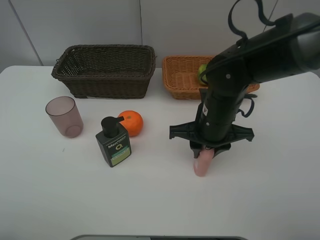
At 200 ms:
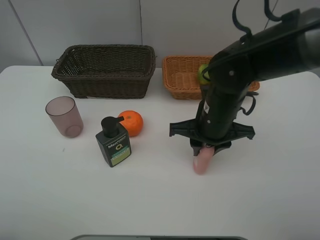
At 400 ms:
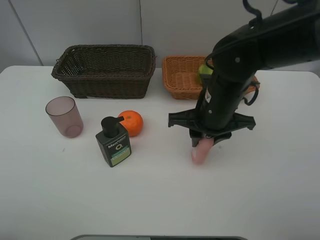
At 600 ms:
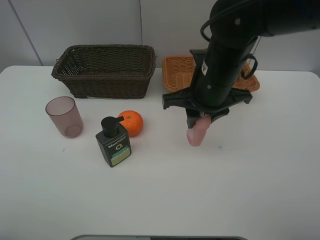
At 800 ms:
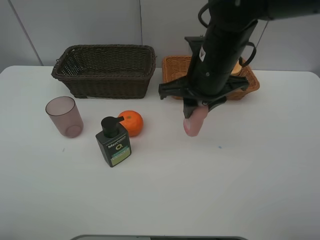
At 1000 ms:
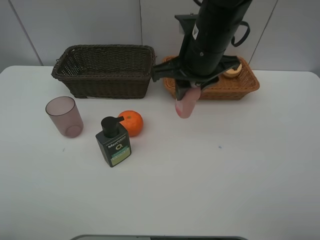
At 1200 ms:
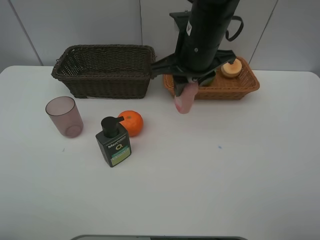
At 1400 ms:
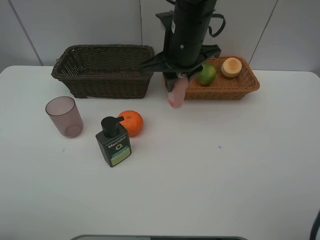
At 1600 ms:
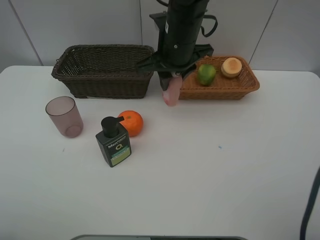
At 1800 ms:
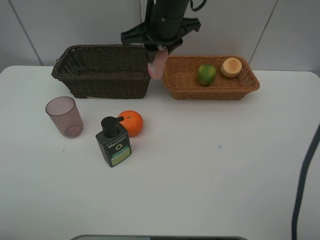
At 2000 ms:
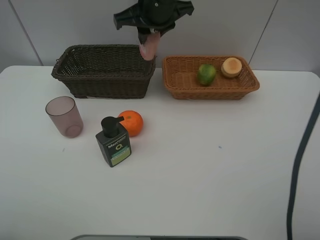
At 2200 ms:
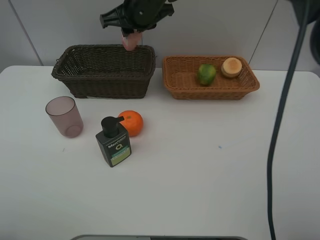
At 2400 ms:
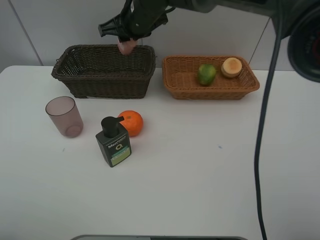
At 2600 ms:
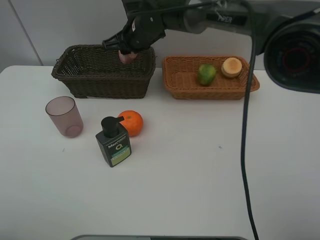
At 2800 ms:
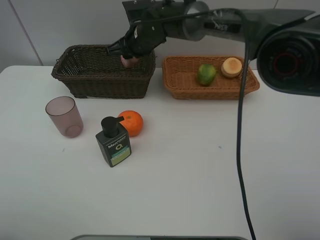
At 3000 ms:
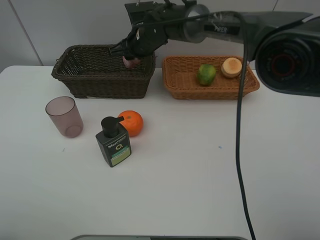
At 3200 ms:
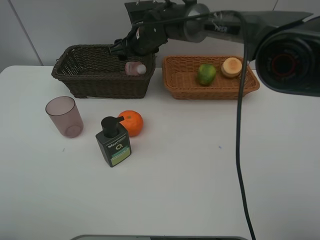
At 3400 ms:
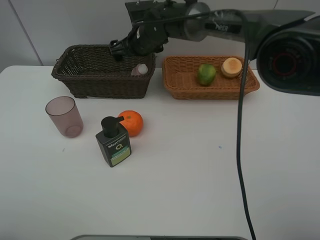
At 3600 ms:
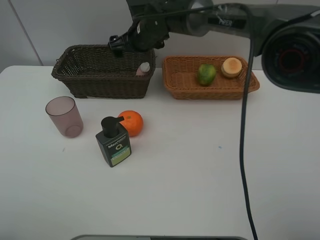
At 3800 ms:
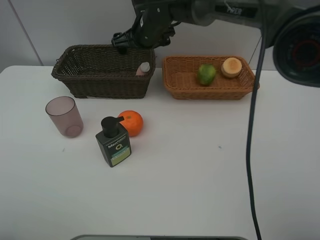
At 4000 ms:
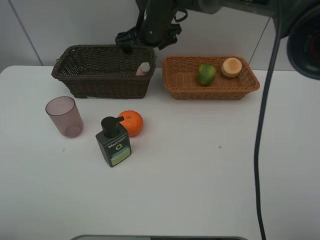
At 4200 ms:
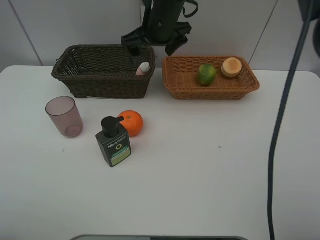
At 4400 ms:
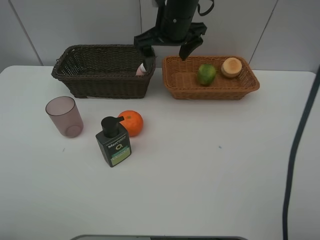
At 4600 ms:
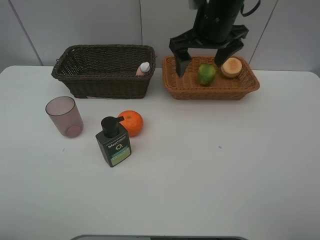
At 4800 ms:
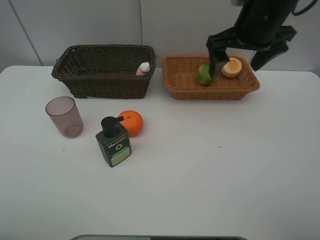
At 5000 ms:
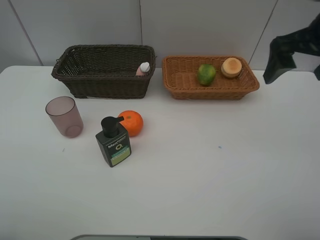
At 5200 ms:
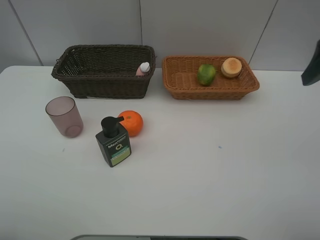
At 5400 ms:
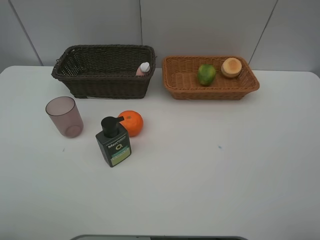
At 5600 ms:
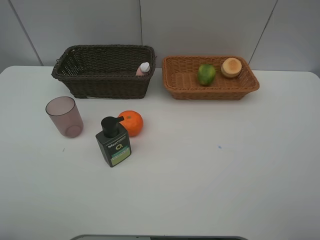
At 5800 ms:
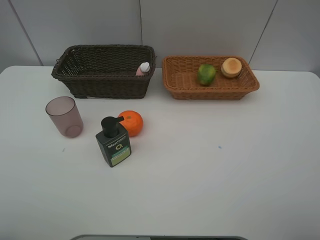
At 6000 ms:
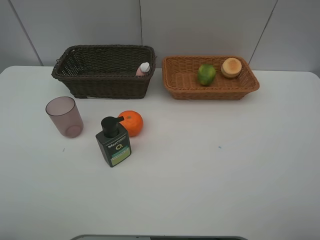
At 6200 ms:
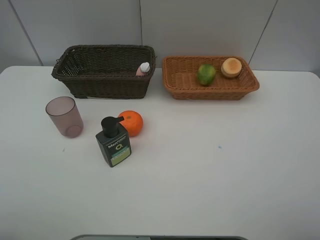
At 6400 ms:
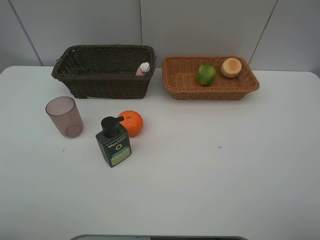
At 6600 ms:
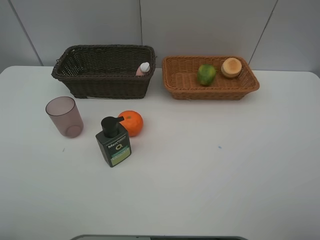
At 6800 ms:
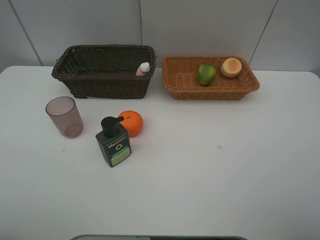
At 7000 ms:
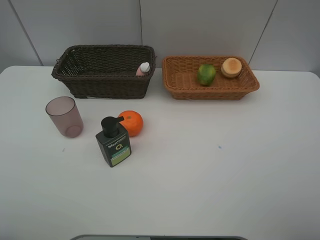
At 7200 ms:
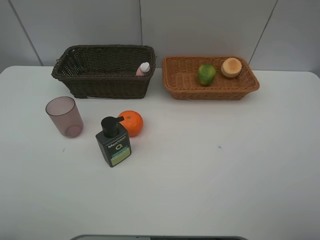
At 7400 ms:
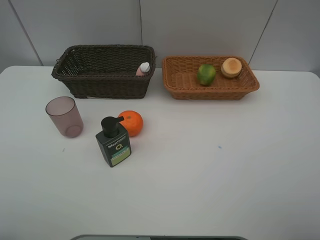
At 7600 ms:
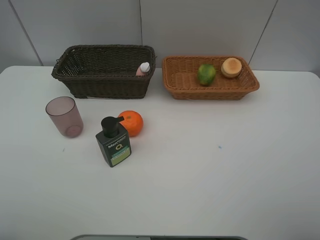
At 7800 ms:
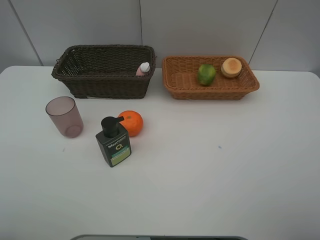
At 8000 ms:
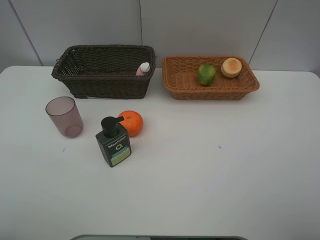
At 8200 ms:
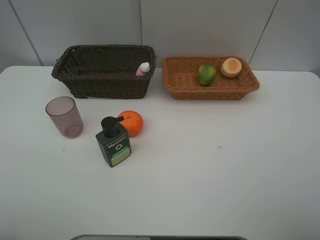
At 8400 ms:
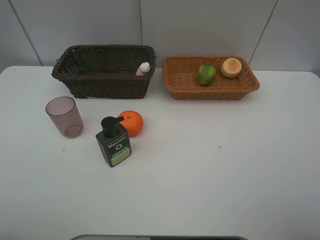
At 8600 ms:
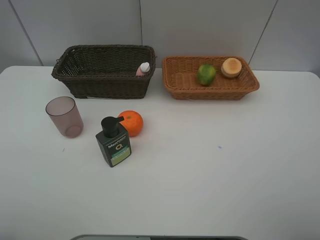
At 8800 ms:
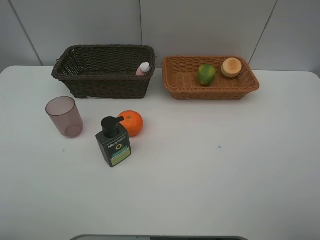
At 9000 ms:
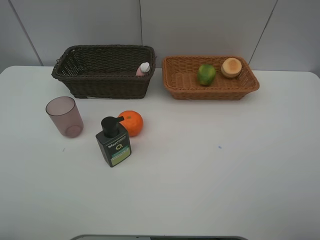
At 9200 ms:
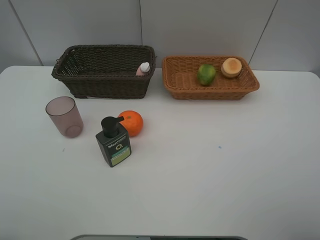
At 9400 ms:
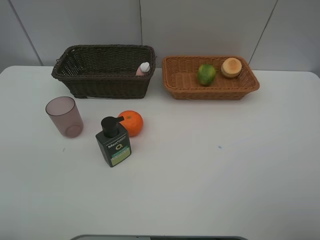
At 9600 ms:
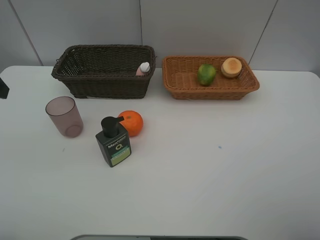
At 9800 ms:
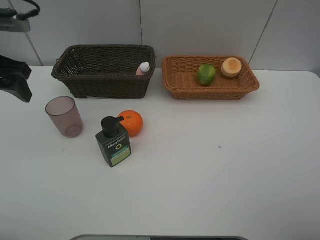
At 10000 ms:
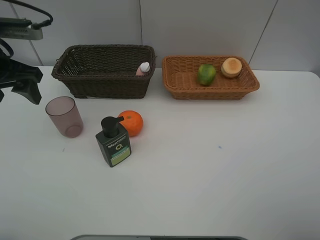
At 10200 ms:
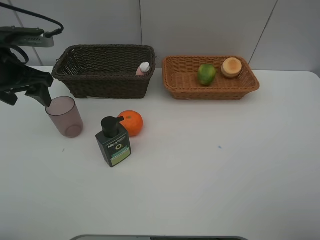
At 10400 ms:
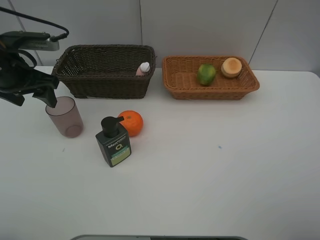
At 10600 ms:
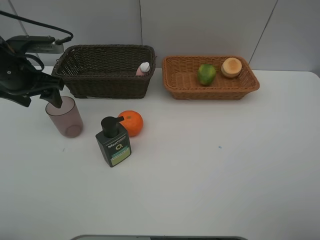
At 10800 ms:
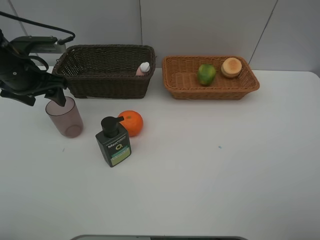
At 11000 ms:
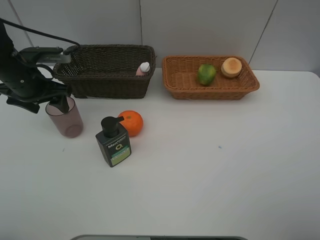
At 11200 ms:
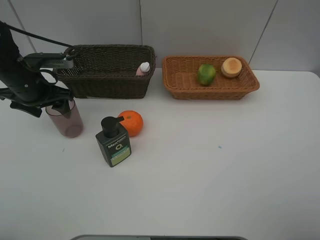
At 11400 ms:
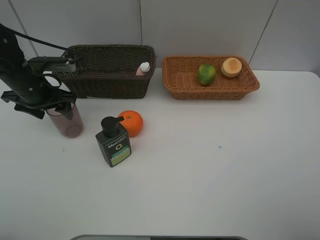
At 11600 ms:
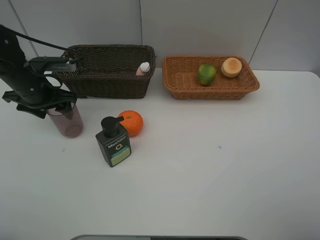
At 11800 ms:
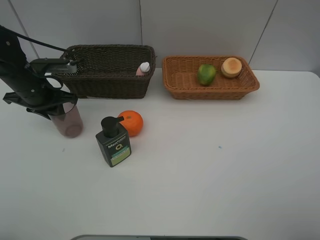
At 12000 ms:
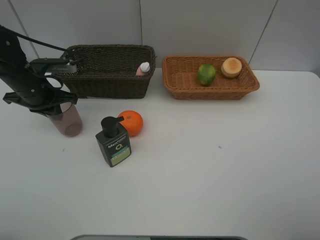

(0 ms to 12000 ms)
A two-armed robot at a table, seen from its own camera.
Task of the whole recording: place multiple objects separately in different baskets.
0 ms - 1600 ms: The right gripper goes about 15 cm upward, forward and to the left.
1600 ms - 3000 ms: The right gripper shifts roughly 15 cm forward, downward and to the left.
3000 ms - 4400 ms: The right gripper goes about 15 cm upward, to the right and backward, and opens.
4400 ms - 6000 ms: The right gripper shifts about 50 cm backward and to the right.
9000 ms - 10400 ms: The left gripper is displaced forward and downward by roughly 30 cm.
10400 ms - 12000 ms: The left gripper goes roughly 5 cm downward, and closes up.

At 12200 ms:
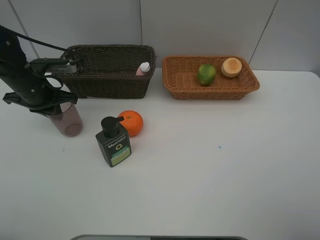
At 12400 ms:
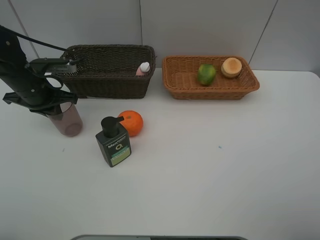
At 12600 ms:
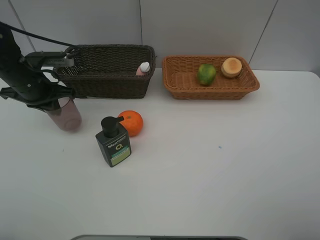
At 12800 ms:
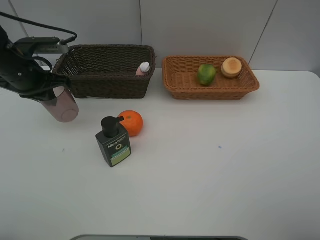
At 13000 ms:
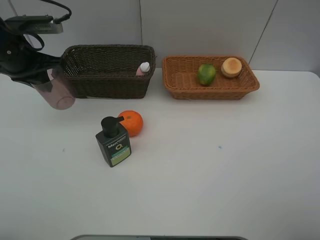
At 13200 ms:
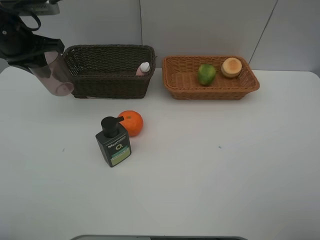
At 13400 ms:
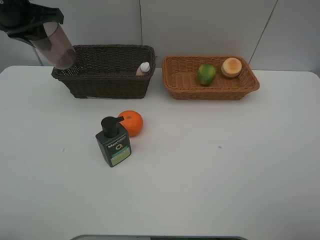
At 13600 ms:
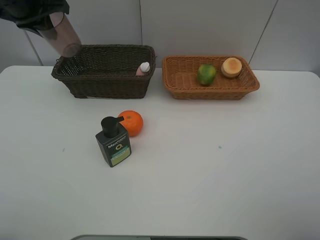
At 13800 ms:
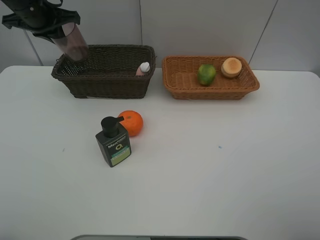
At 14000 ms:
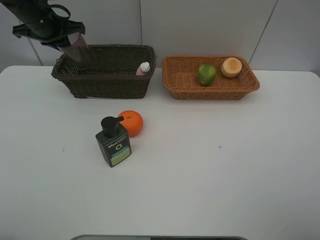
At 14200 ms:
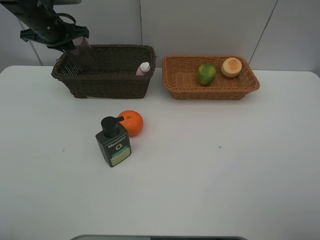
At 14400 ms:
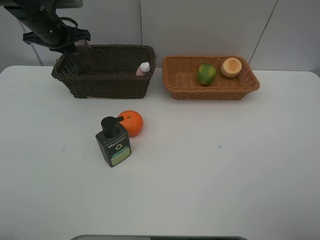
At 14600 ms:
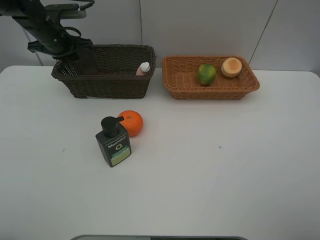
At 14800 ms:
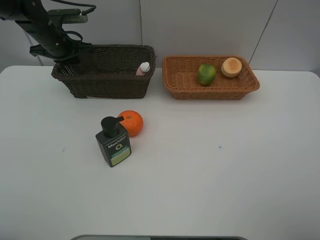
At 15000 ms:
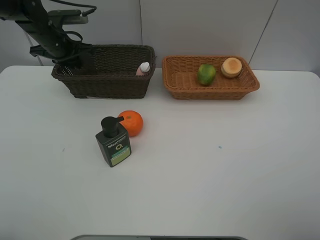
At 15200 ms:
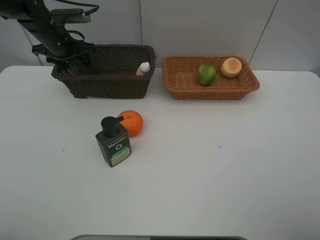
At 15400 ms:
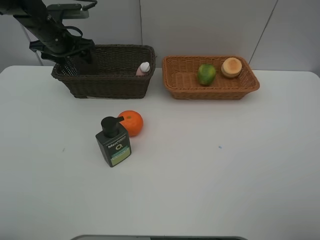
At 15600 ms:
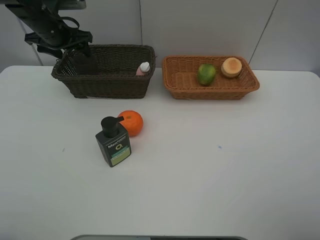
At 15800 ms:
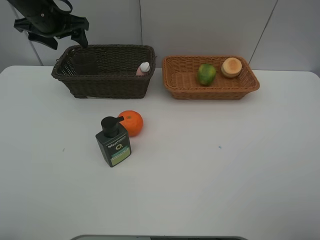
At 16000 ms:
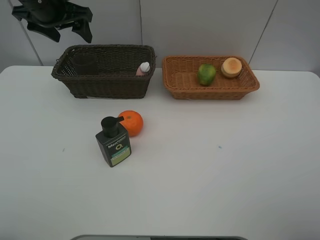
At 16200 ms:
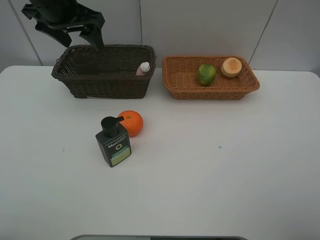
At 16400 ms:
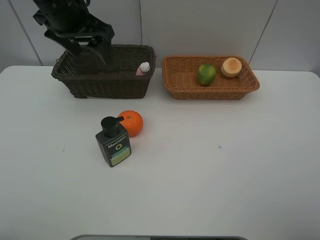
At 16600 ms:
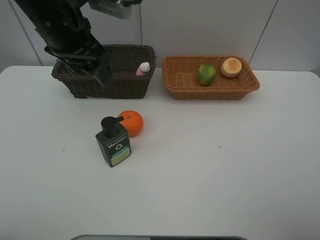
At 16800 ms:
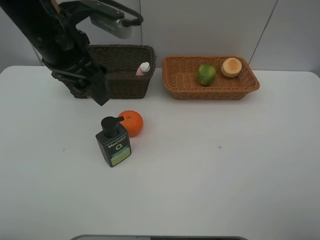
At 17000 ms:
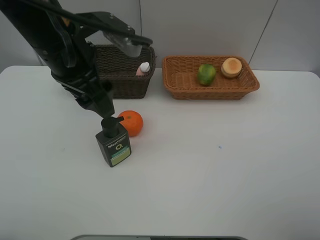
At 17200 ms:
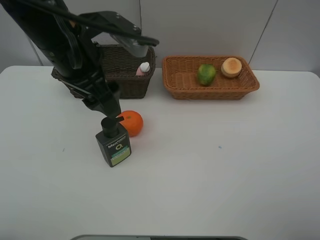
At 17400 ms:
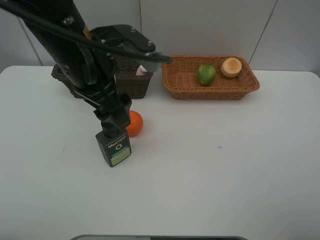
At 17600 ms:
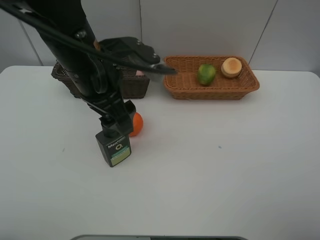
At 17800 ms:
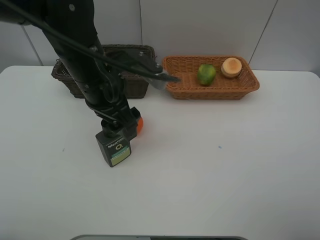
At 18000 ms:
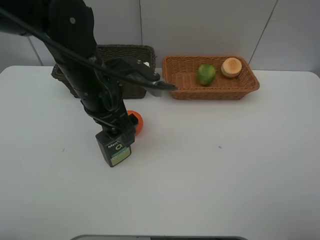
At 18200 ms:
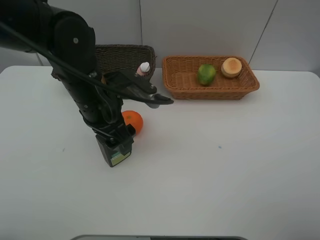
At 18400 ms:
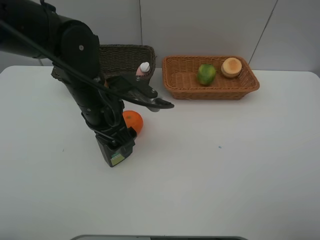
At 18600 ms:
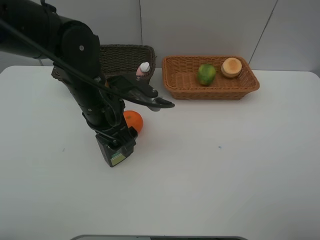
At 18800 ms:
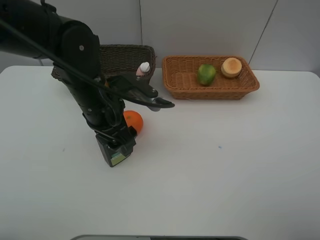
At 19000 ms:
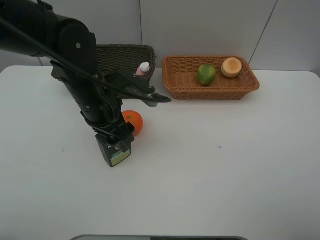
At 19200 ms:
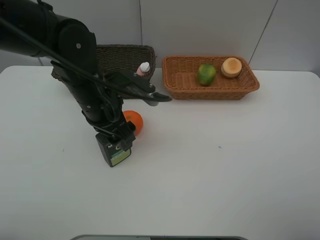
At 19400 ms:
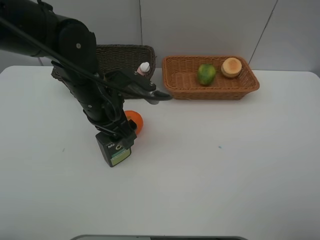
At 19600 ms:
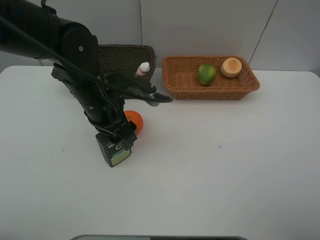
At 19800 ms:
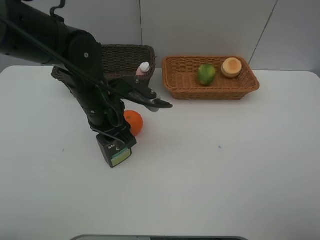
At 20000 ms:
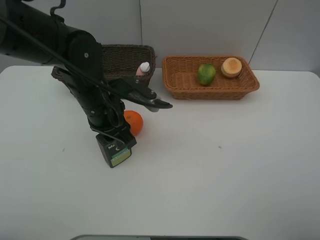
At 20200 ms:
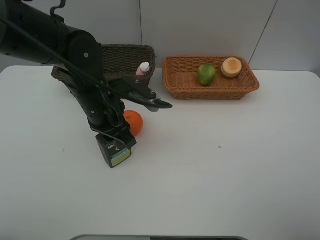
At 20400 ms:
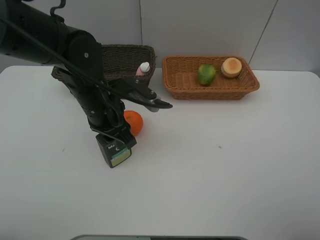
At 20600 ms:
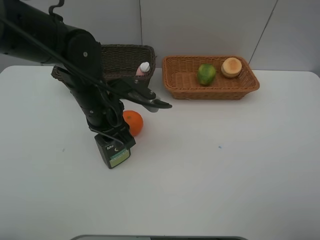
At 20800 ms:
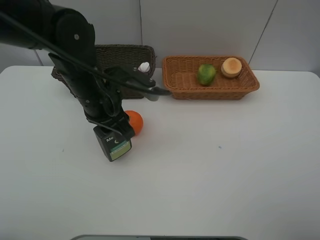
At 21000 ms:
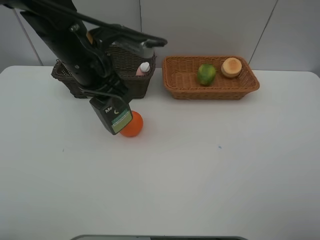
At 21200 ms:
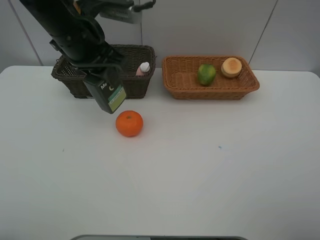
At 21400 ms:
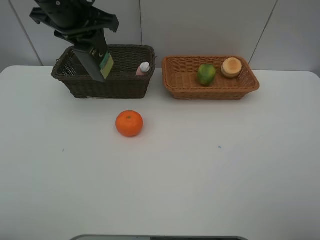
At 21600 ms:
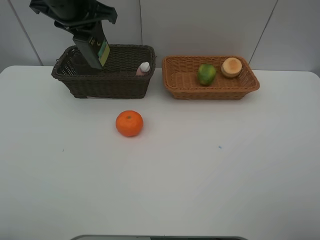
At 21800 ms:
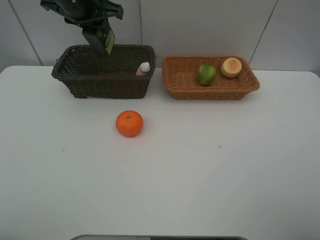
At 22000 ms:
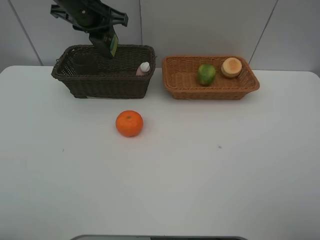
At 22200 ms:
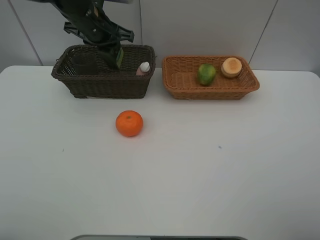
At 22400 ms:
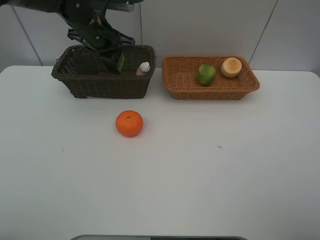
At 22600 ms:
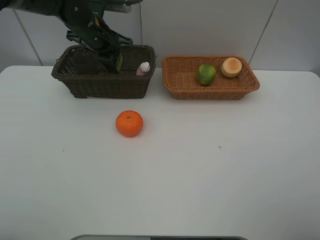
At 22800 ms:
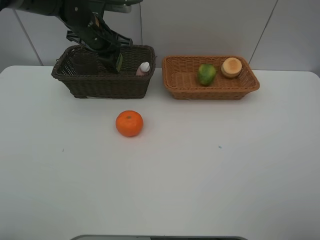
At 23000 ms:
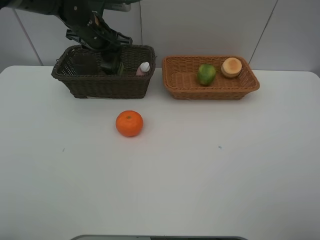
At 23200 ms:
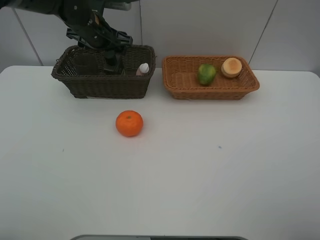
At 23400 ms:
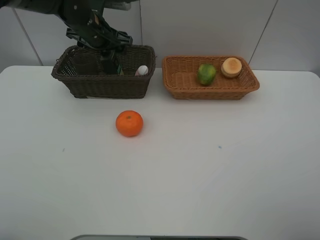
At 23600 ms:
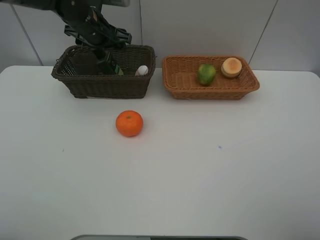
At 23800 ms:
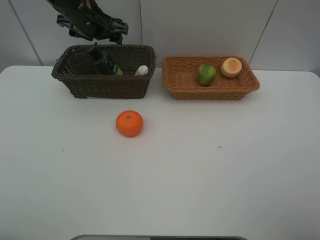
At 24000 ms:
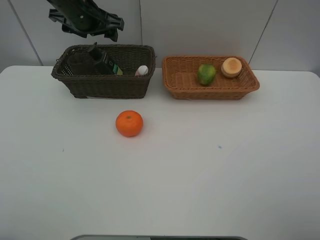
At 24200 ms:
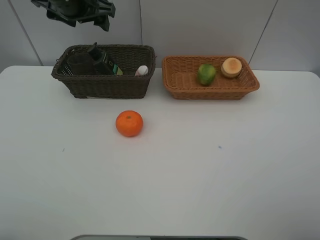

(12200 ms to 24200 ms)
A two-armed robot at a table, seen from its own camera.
Task of the whole recording: place multiple objects separately in different baskets.
12200 ms - 13800 ms: The left gripper travels upward and forward by approximately 15 cm.
13800 ms - 15200 ms: The left gripper is displaced downward by about 5 cm, and opens its fingers.
15200 ms - 16600 ms: The left gripper travels backward, upward and to the right by about 25 cm.
16600 ms - 18200 ms: The left gripper moves downward, approximately 10 cm.
18200 ms - 19800 ms: The left gripper closes its fingers.
19800 ms - 21200 ms: The left gripper moves upward, roughly 10 cm.
21200 ms - 22600 ms: The left gripper travels forward and downward by approximately 15 cm.
22600 ms - 24200 ms: The left gripper shifts approximately 10 cm upward, and opens up.
